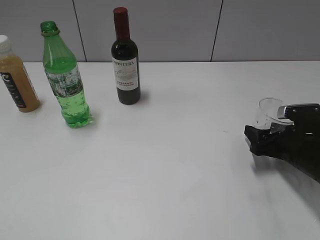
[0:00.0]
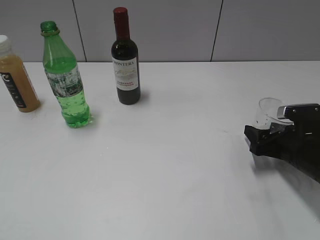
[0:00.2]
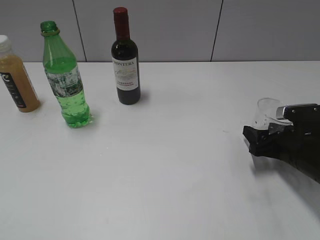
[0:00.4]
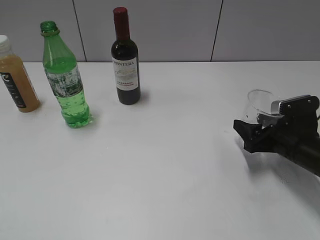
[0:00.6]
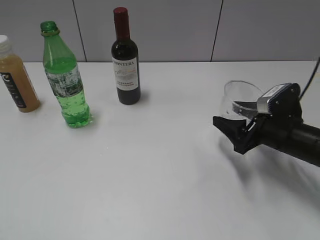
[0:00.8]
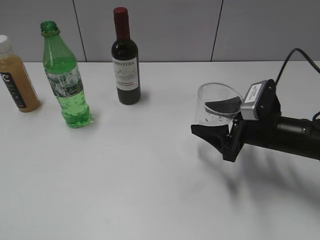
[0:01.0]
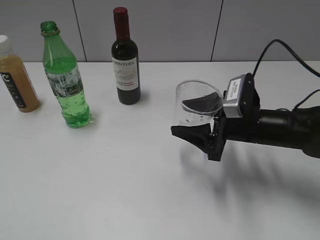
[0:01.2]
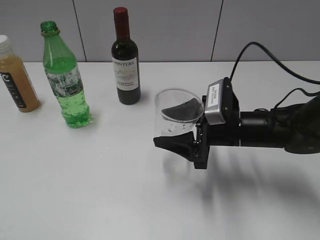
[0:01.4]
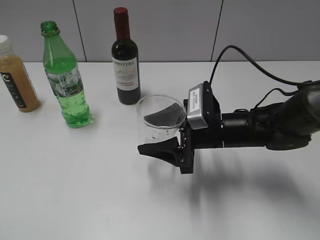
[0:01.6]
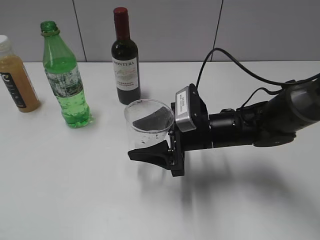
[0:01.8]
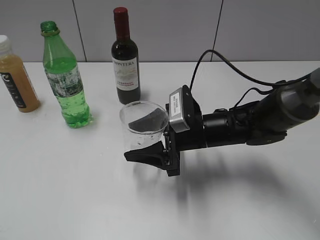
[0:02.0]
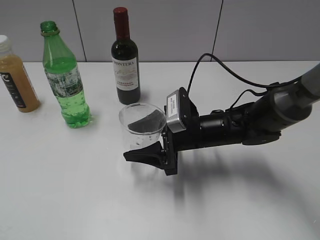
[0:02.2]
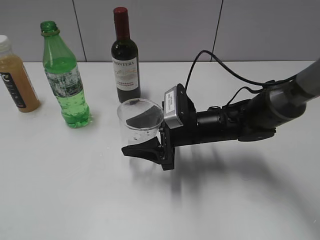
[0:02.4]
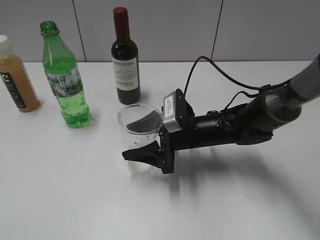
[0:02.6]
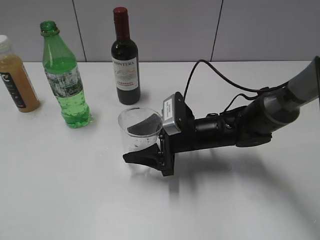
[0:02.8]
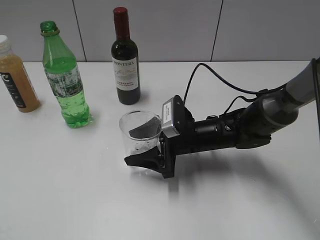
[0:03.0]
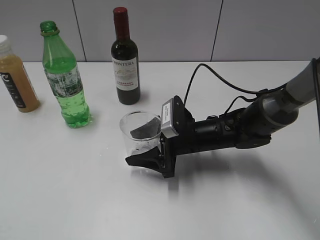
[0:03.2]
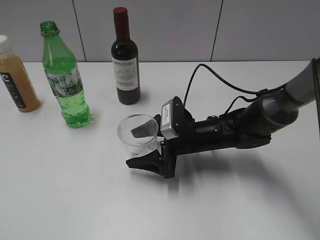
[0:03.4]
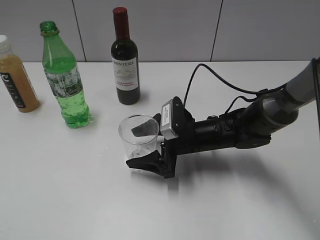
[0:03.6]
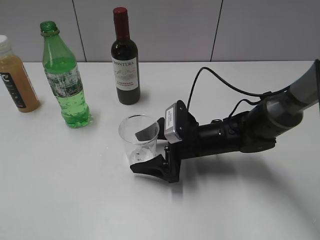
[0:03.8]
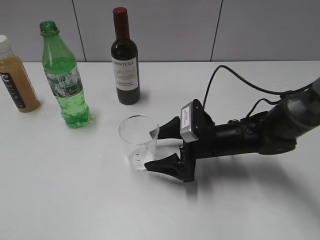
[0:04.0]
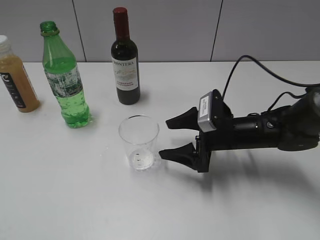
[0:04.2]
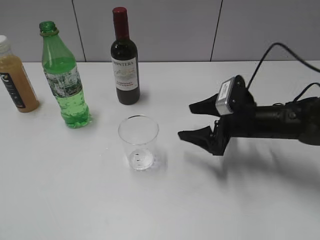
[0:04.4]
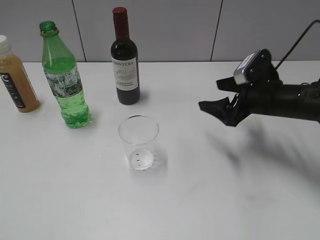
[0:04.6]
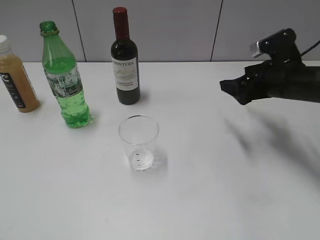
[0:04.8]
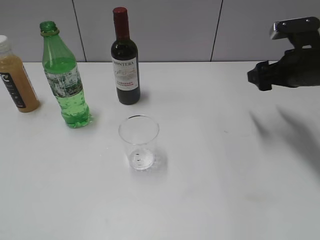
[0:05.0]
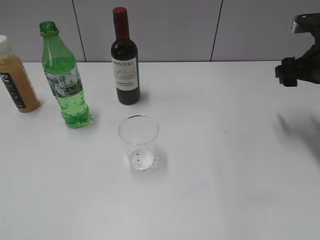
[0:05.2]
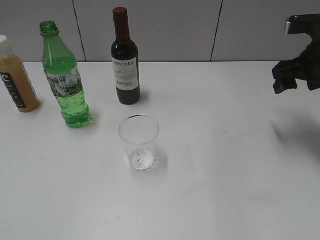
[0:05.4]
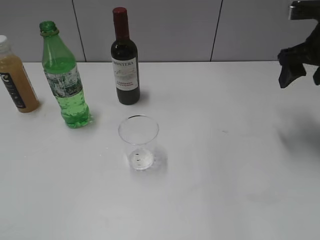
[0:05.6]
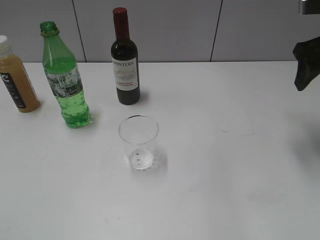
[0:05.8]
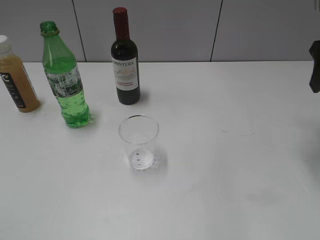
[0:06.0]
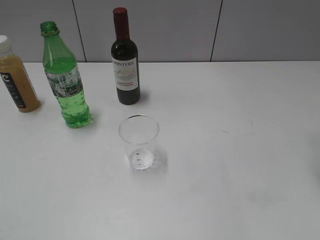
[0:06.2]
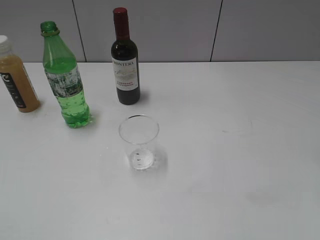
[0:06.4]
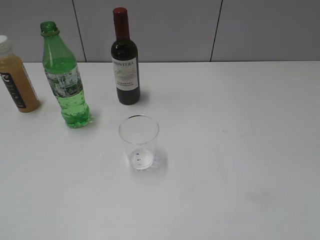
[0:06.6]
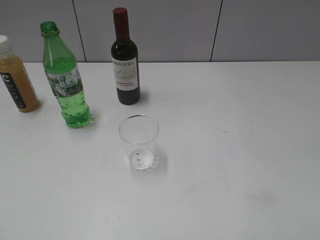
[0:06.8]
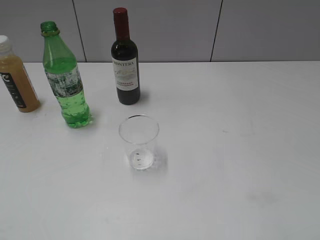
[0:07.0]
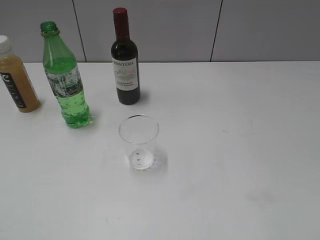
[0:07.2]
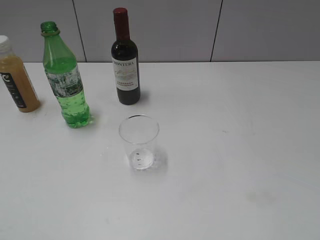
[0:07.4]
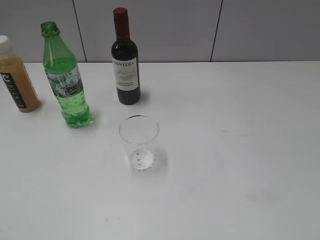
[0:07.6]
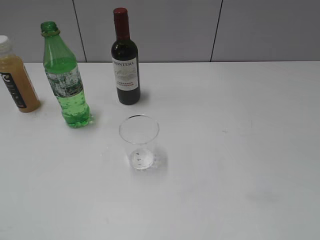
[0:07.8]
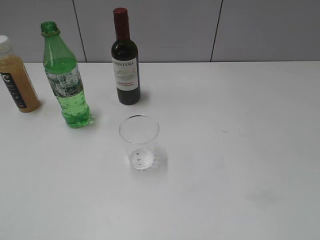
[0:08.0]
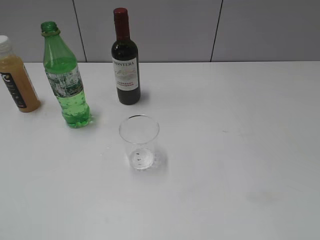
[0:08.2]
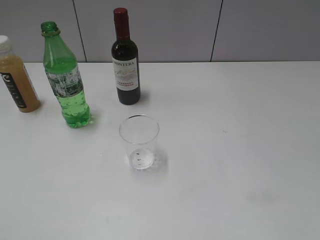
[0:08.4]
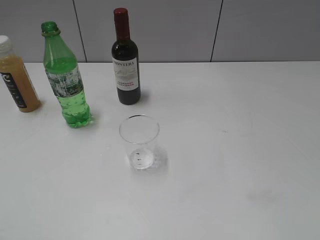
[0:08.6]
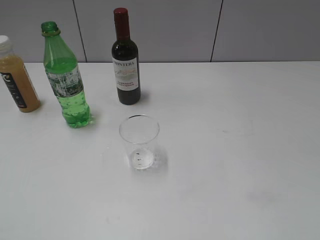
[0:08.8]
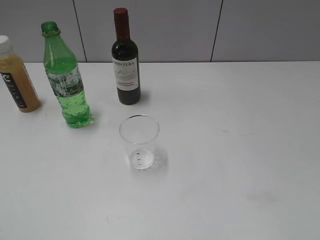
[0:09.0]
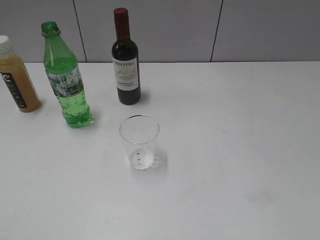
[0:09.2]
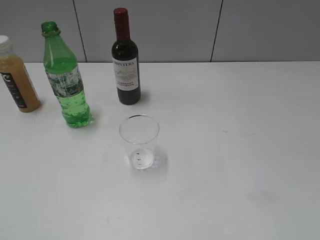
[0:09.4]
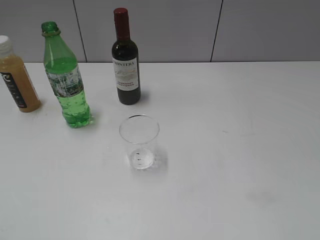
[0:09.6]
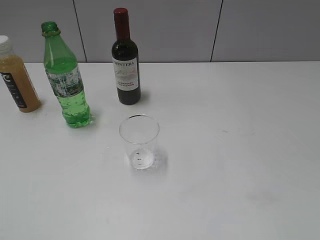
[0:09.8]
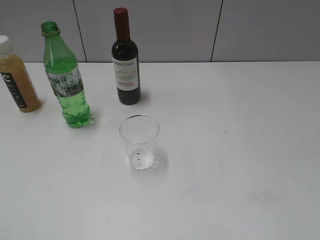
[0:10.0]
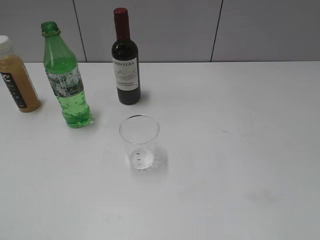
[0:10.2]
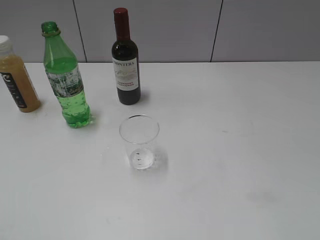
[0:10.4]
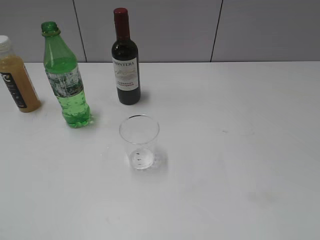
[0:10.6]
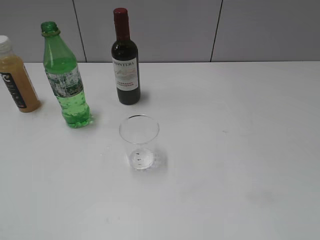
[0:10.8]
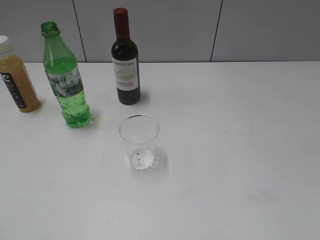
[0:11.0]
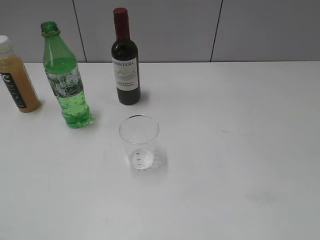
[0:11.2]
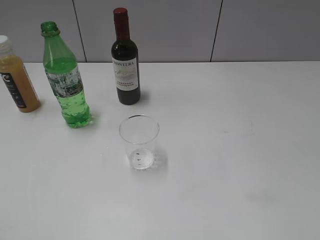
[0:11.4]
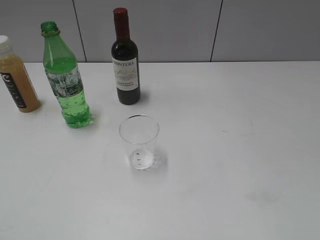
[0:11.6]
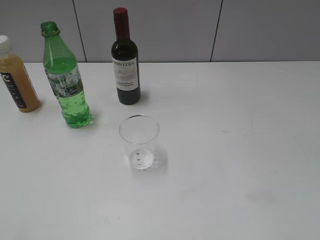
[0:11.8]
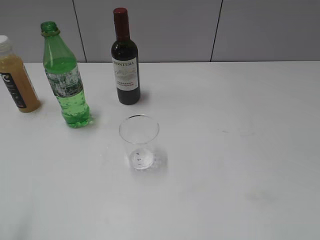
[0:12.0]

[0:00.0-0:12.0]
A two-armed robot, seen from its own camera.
Step, 0:00.4 to 0:04.0: Place the transparent cup on the table with right gripper.
0:00.0 to 0:01.6: The right gripper travels to the left by about 15 cm.
0:01.6 to 0:03.0: The right gripper shifts by roughly 5 cm.
0:03.0 to 0:04.4: The right gripper moves to the right, about 10 cm, and opens.
0:04.4 to 0:06.0: The right gripper is displaced upward and to the right by some 25 cm, and closes up.
0:06.0 to 0:07.6: The right gripper heads backward, covering about 30 cm.
0:09.0 to 0:10.4: Neither gripper changes place.

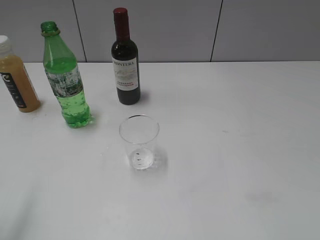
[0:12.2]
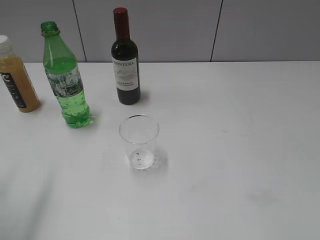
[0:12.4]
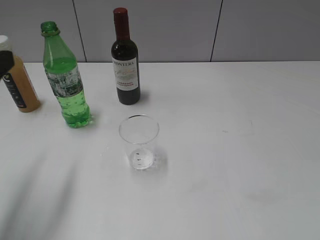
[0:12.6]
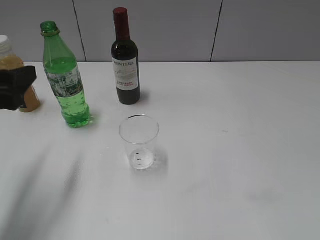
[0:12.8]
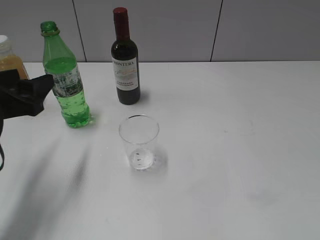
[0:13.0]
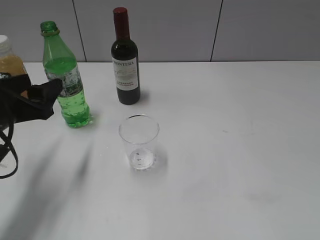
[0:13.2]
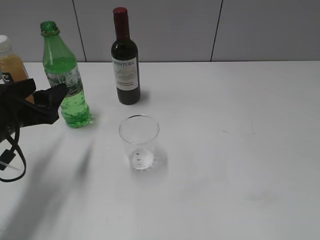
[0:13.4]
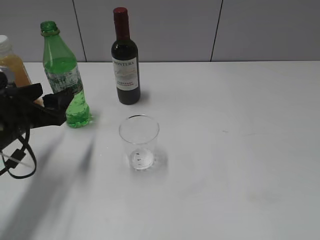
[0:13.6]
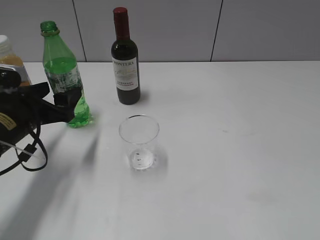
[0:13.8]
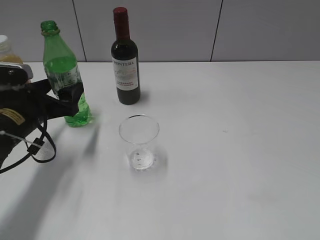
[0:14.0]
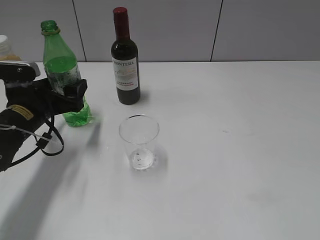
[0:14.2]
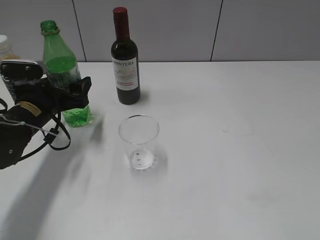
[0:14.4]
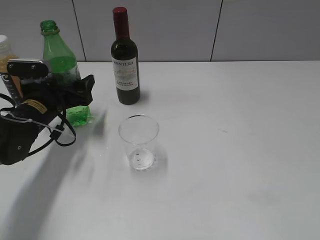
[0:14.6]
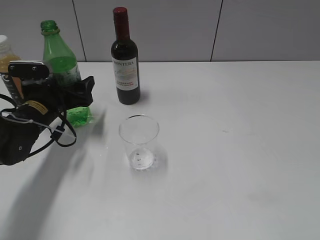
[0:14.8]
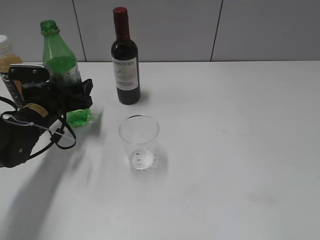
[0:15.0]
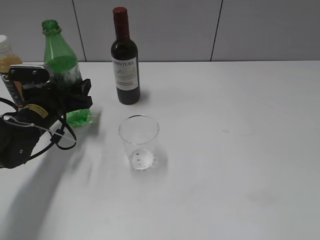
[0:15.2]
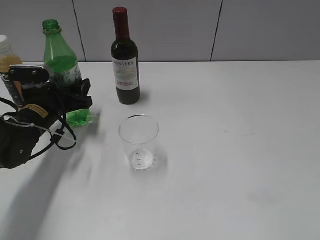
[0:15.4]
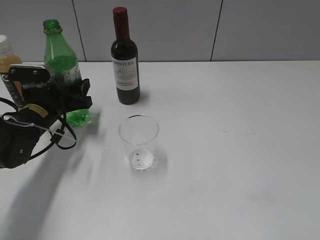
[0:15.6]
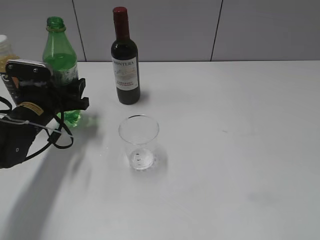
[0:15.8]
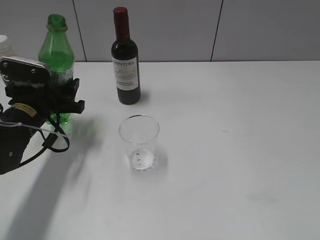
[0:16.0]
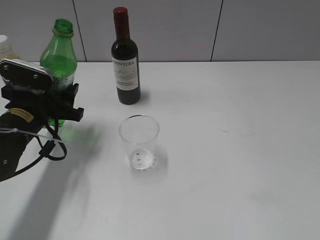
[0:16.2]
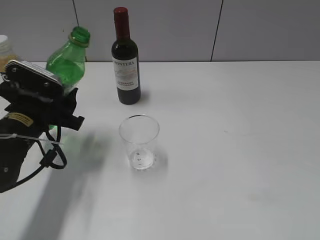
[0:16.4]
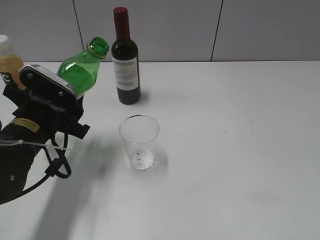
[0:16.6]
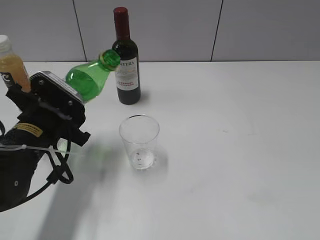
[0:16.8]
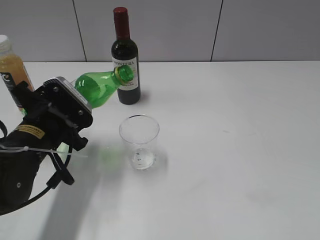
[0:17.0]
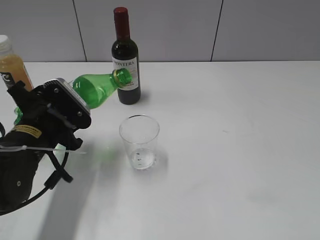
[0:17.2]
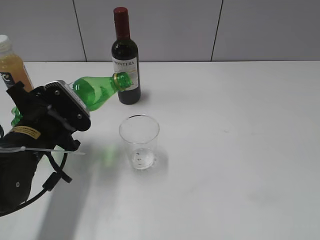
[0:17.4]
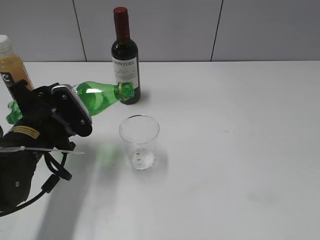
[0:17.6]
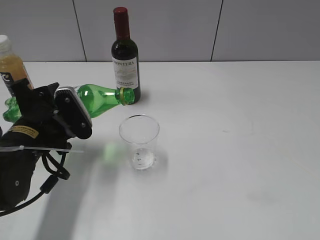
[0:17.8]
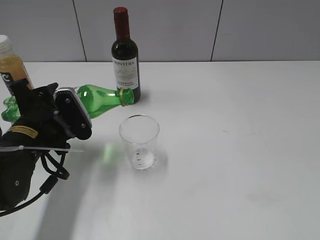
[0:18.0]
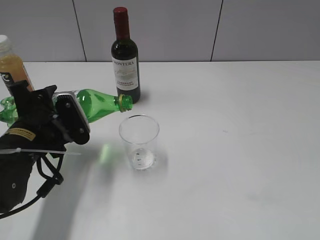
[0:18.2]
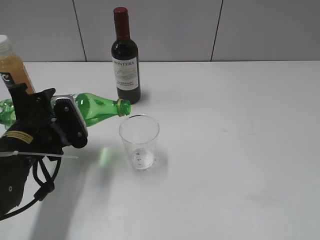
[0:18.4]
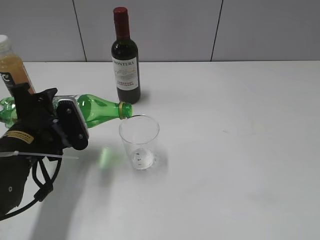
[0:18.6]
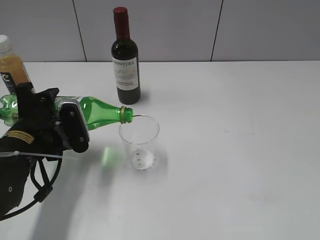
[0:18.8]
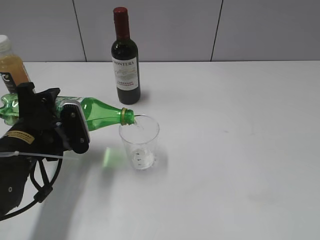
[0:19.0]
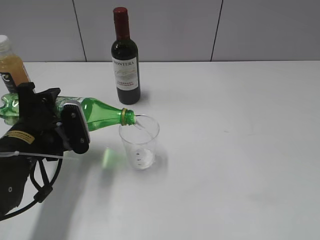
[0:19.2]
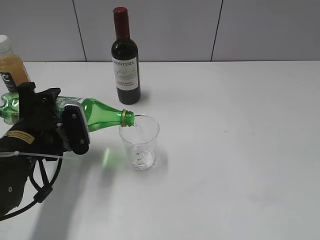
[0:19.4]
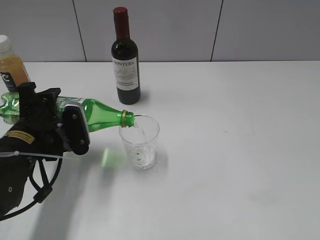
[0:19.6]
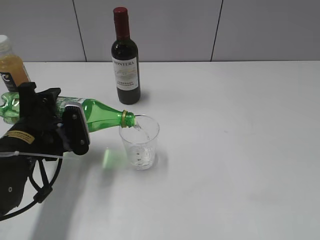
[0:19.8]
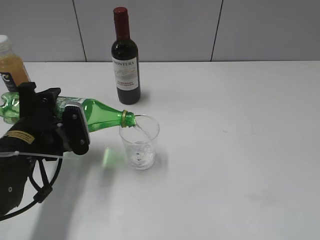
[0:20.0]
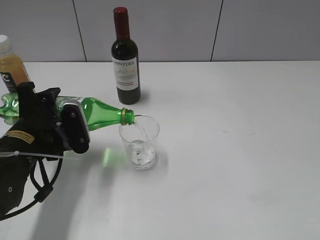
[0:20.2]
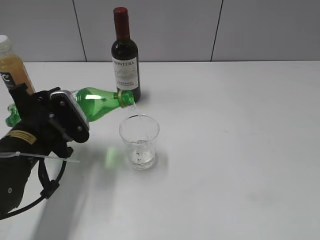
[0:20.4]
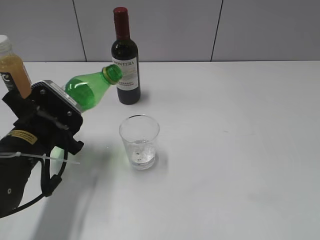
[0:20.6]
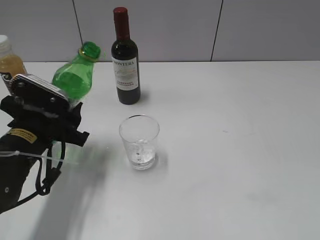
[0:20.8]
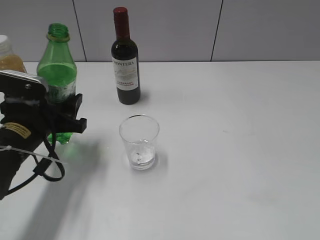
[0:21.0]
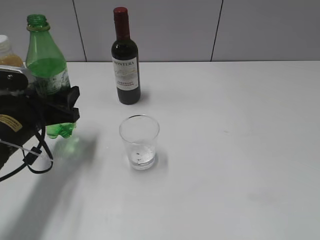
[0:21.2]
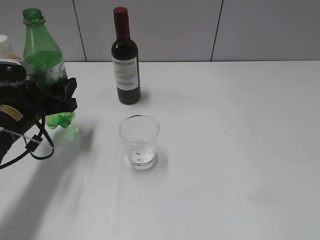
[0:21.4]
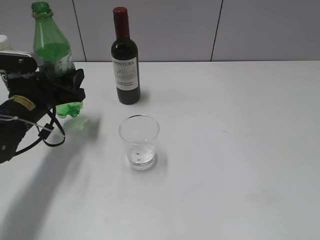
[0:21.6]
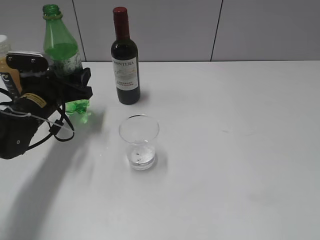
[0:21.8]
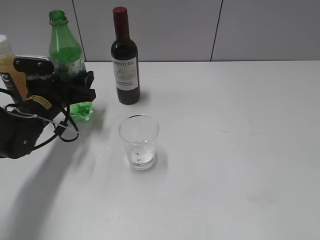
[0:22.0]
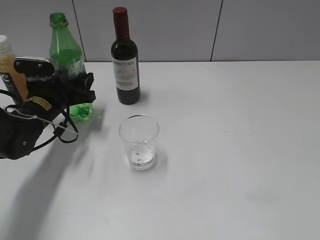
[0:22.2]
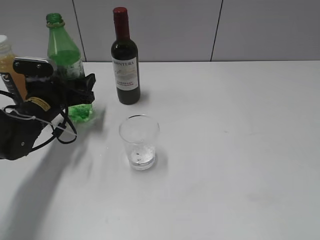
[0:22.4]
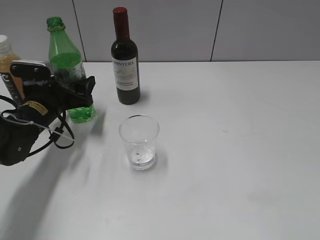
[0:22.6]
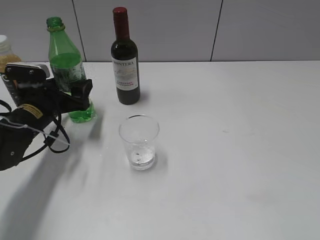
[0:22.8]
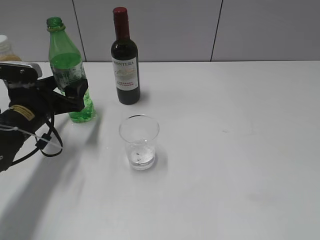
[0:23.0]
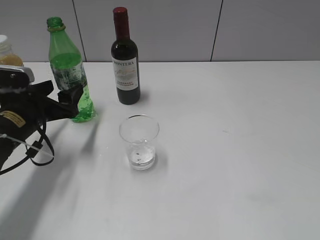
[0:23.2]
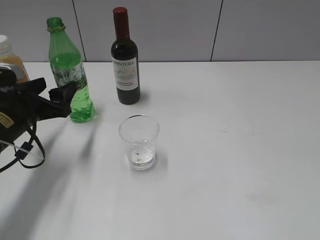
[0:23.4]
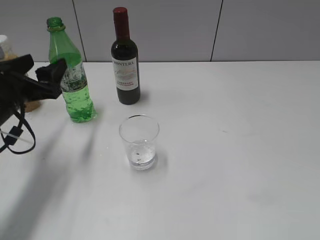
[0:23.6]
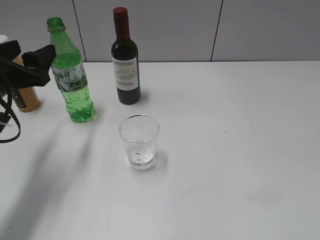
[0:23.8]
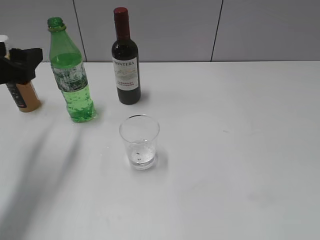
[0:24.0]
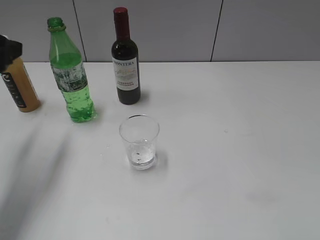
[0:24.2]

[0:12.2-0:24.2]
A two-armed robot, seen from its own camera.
Step, 0:12.2 to 0:15.2: Grasp the bottle with sprite with left gripper.
Step, 0:15.4 to 0:20.4: Pour the sprite from bottle to cup with left gripper.
Step, 0:20.6 to 0:23.2: Place the sprite bottle on the table with left gripper.
0:12.2 to 0:13.8: The left gripper travels downward, forward and to the right by about 25 cm.
0:13.8 to 0:15.2: The left gripper travels forward by some 5 cm, and closes.
0:15.2 to 0:16.6: The left gripper is displaced backward by some 10 cm.
0:18.2 to 0:19.8: The grippers make only small movements.
0:21.2 to 0:22.6: The left gripper shifts some 10 cm forward, and opens.
0:22.6 to 0:24.2: The left gripper shifts some 20 cm upward and backward.
